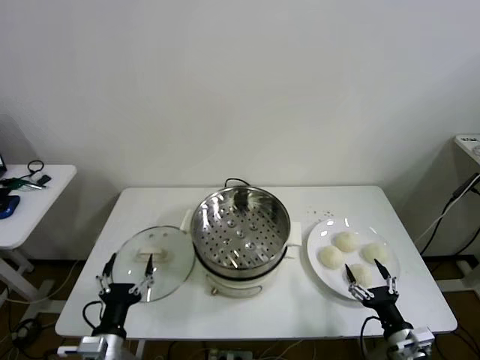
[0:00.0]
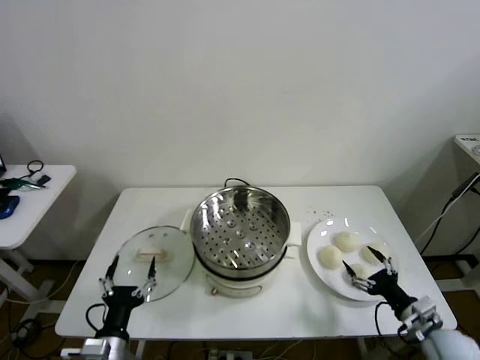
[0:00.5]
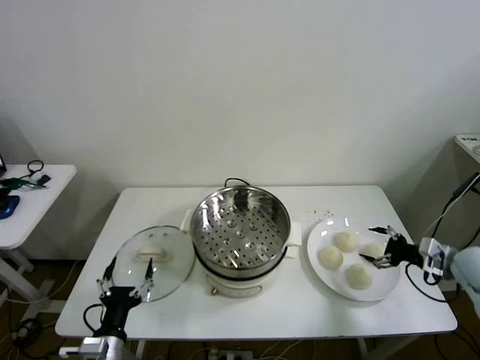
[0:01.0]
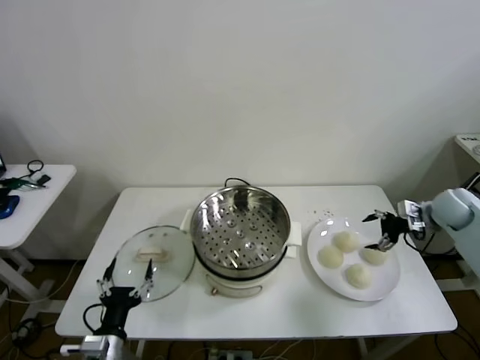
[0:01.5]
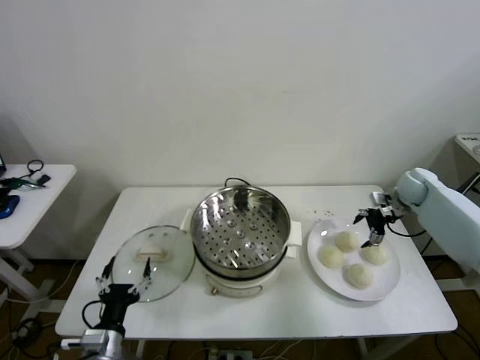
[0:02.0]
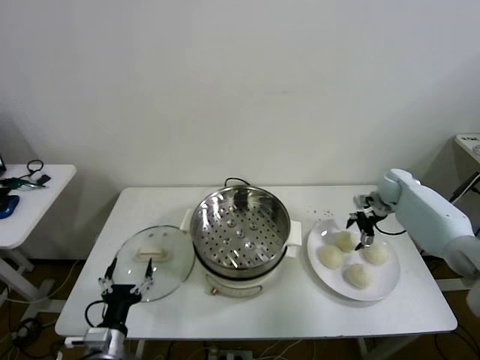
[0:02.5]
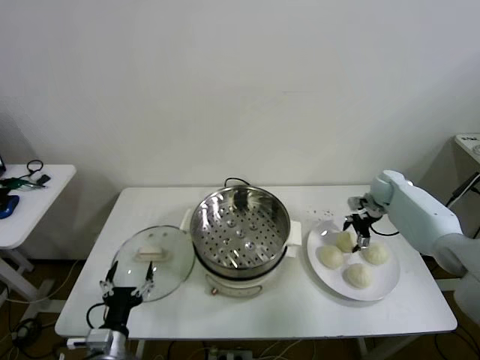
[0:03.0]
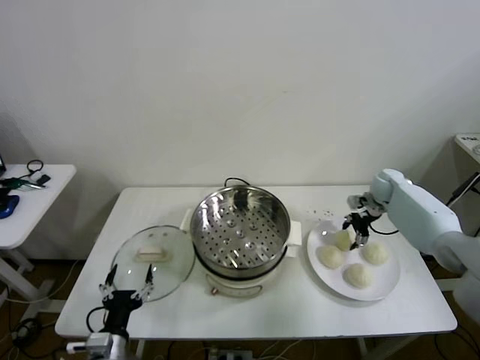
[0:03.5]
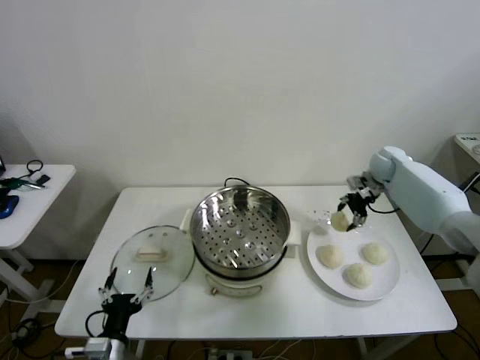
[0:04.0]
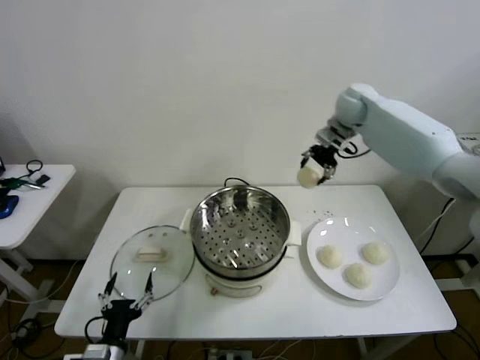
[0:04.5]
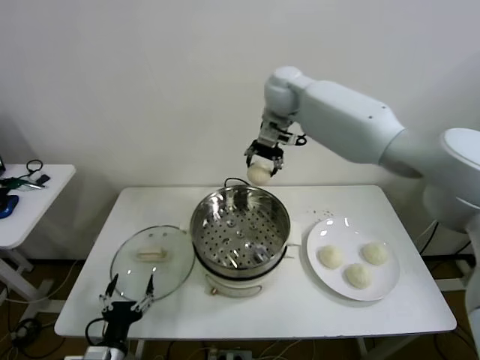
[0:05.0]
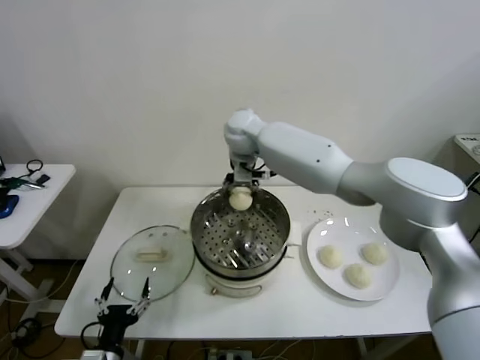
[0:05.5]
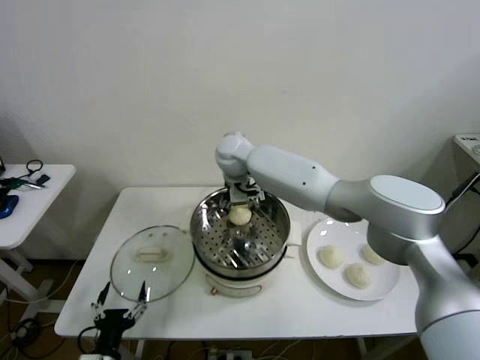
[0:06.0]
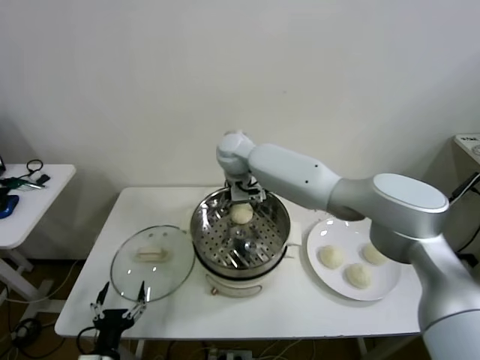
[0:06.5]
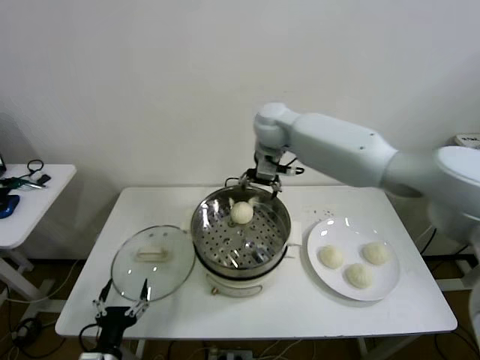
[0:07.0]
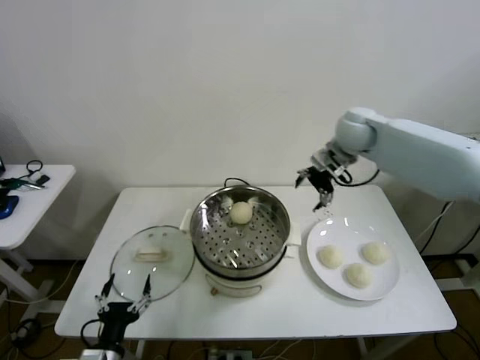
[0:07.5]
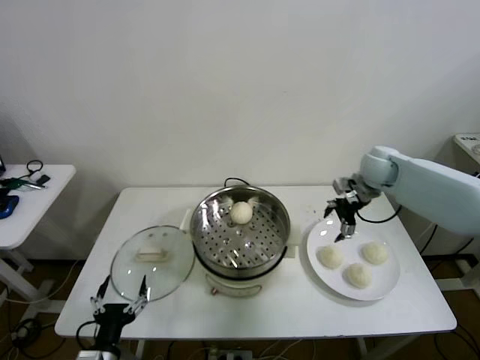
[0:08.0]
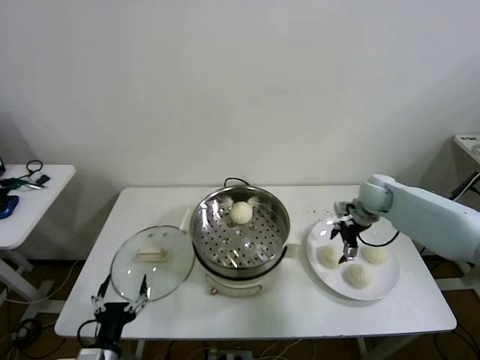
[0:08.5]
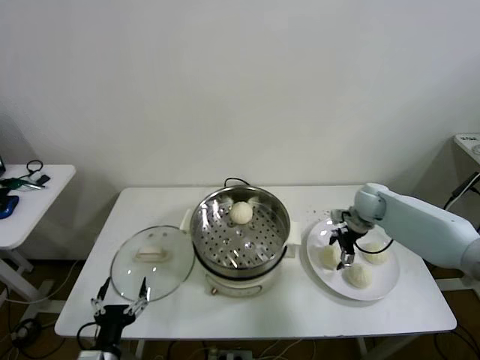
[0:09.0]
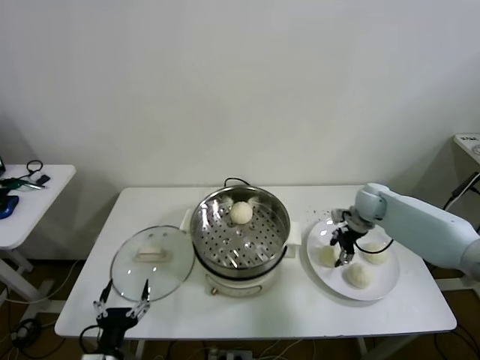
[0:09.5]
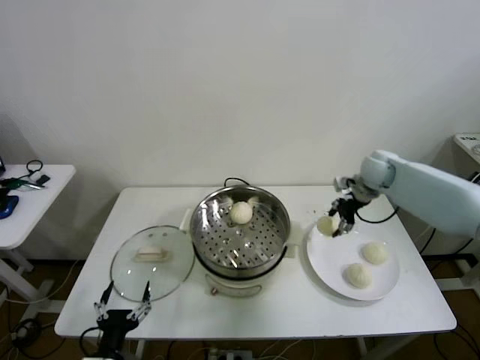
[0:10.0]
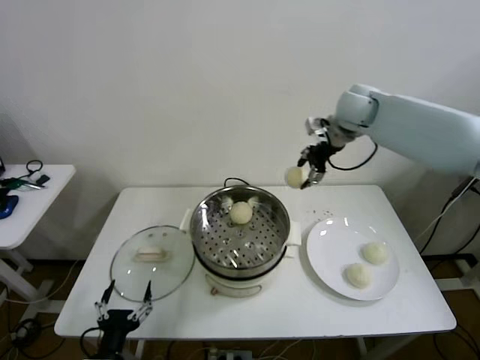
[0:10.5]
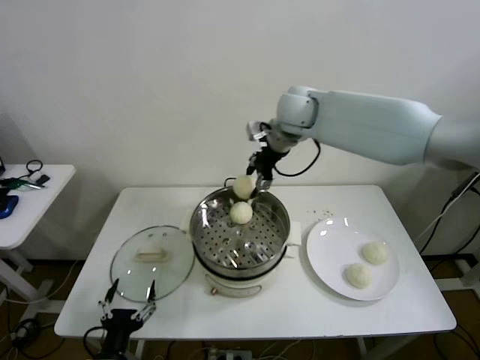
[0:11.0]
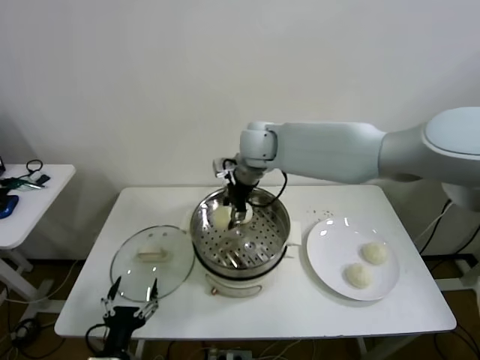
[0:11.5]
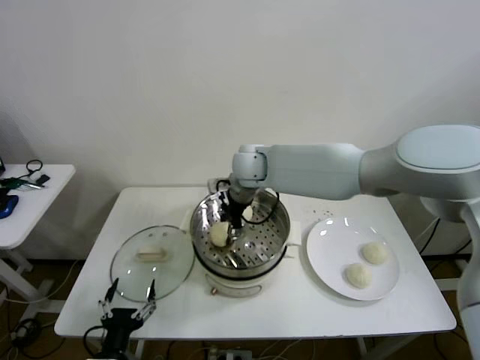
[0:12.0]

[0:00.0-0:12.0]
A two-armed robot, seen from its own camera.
Step, 0:00.0 to 0:03.0: Grasp the baozi in the plate with right gripper.
Step, 0:03.5 to 0:06.0: Place the baozi on the steamer with right gripper.
Step, 0:06.5 to 0:09.0: Grasp the baozi in the plate with right gripper.
0:02.0 to 0:04.0: The right gripper shifts about 10 cm to the left and forward, and closes up.
0:04.0 to 0:06.0: The right gripper is displaced to the left by about 40 cm, and opens up.
0:06.0 to 0:08.0: The right gripper travels to the right by roughly 35 cm.
0:08.0 to 0:10.0: The right gripper goes downward and returns, roughly 10 cm each way, and closes its fingers.
0:10.0 to 0:12.0: The right gripper travels to the left by about 35 cm.

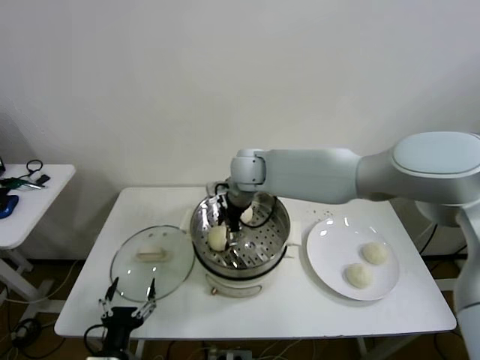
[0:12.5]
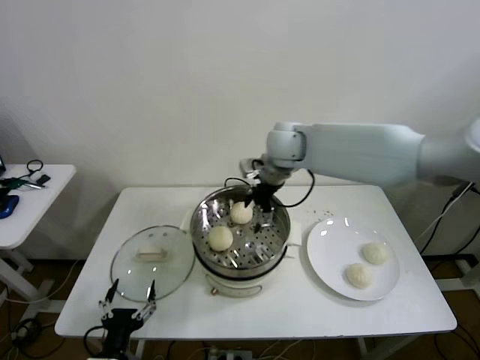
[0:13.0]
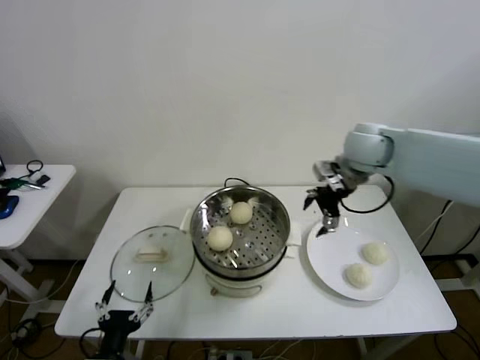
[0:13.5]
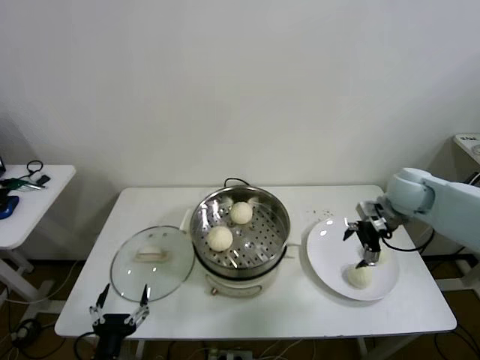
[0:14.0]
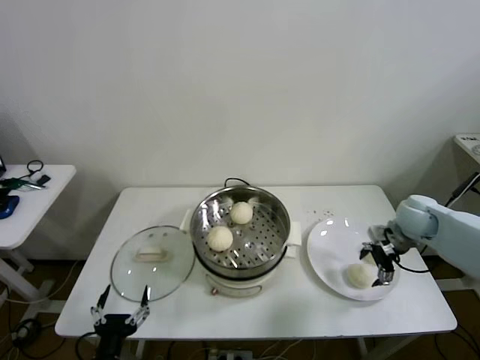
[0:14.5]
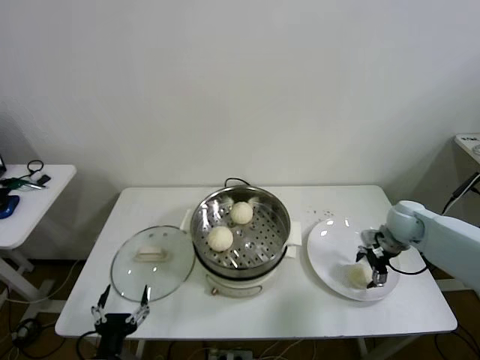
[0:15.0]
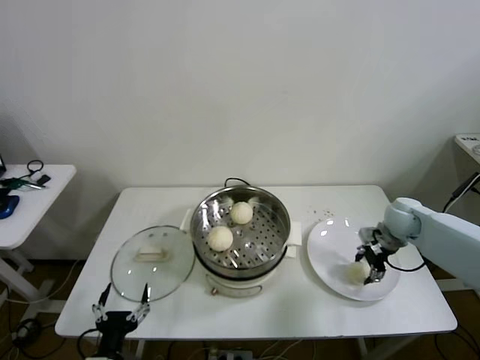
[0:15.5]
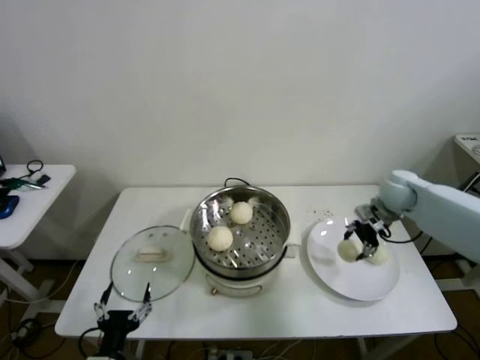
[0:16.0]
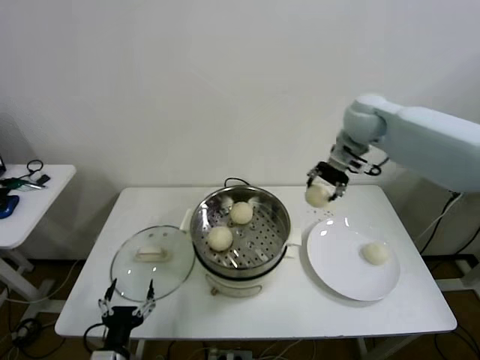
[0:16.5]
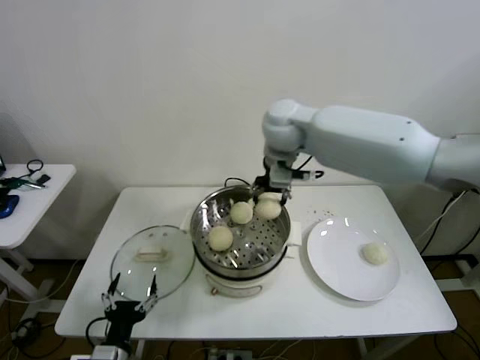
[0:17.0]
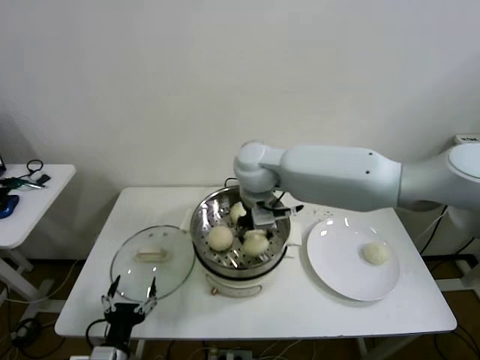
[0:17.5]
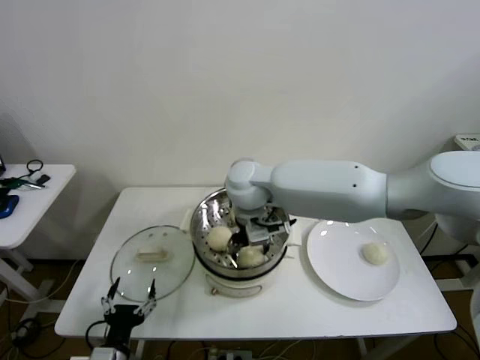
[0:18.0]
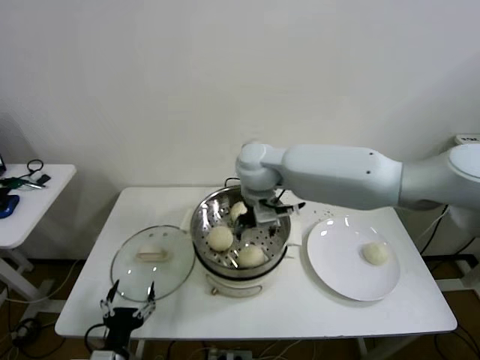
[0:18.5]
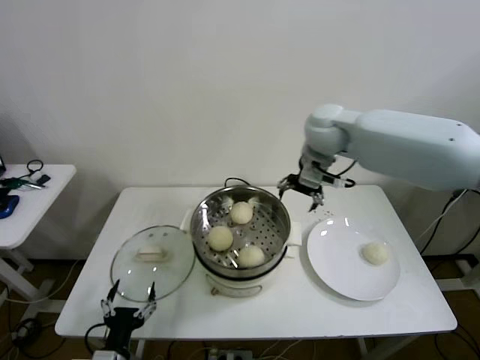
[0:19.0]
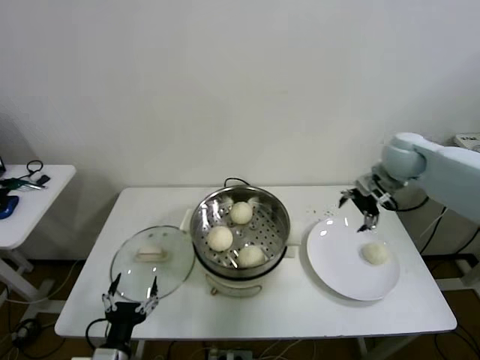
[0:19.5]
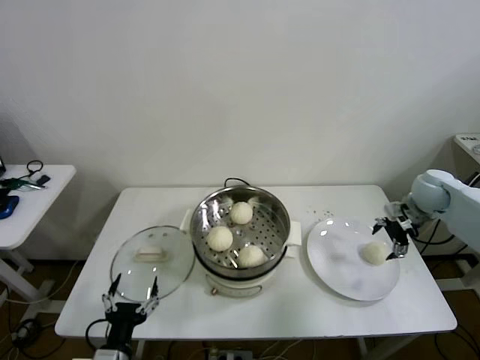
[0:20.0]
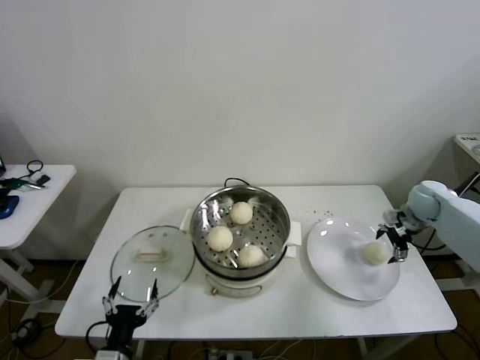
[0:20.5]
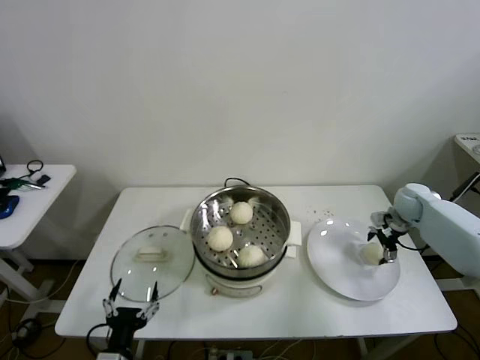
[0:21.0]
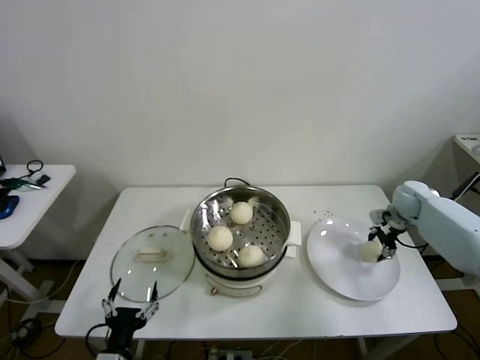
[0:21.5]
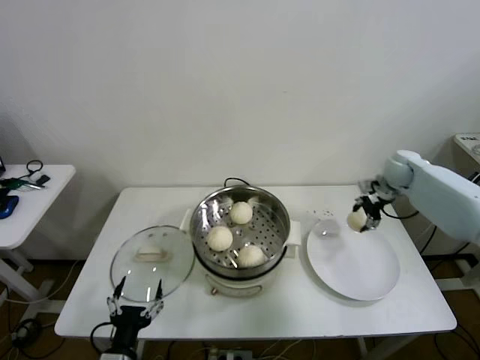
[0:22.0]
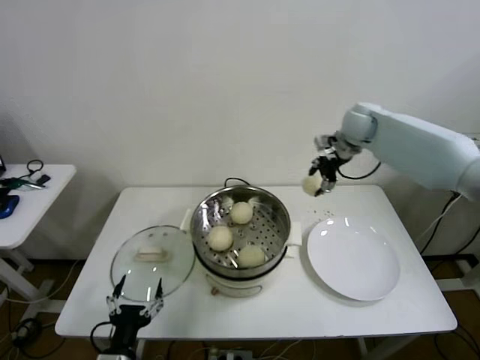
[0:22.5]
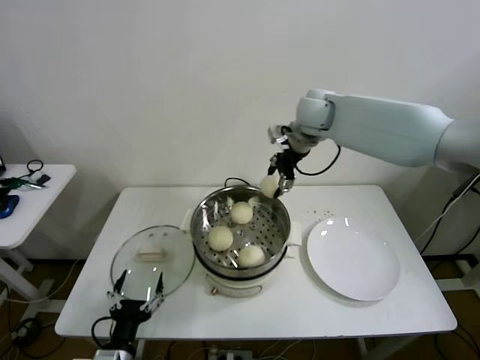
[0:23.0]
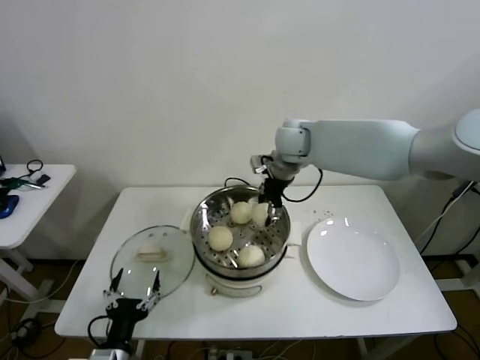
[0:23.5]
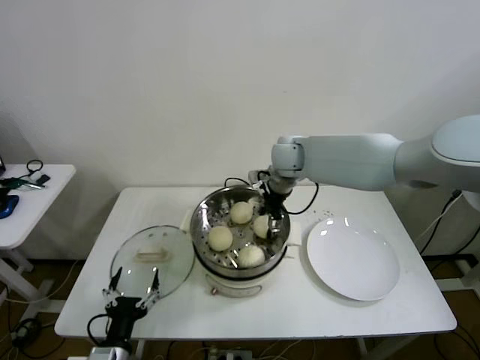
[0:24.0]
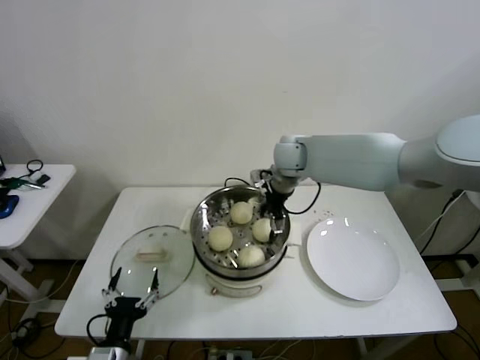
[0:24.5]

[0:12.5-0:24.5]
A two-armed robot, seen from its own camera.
Step, 0:13.0 to 0:15.0: Grasp the baozi in the plate with right gripper.
Step, 0:15.5 to 0:18.0: Place the baozi on the steamer with right gripper.
Step, 0:18.5 to 0:21.0: Grasp the baozi in the plate with right gripper.
Step, 0:21.5 to 0:24.0: Place the baozi on the steamer with right gripper.
0:12.5 to 0:14.5: The right gripper shifts about 40 cm to the right.
0:14.5 to 0:16.5: The right gripper shifts roughly 30 cm upward, to the left and forward, and closes up.
0:16.5 to 0:18.5: The right gripper moves to the left, about 20 cm, and opens its fingers.
0:18.5 to 0:20.5: The right gripper shifts approximately 40 cm to the right.
0:20.5 to 0:22.5: The right gripper heads to the left, upward and forward, covering some 30 cm, and closes up.
0:22.5 to 0:24.5: The right gripper goes roughly 15 cm to the left, and opens.

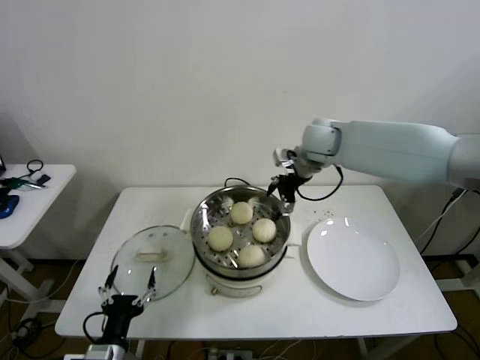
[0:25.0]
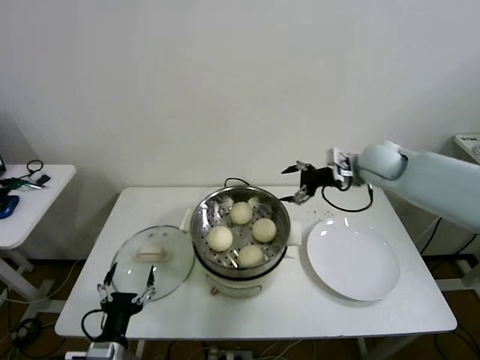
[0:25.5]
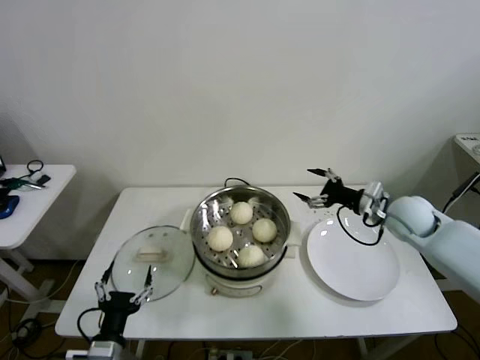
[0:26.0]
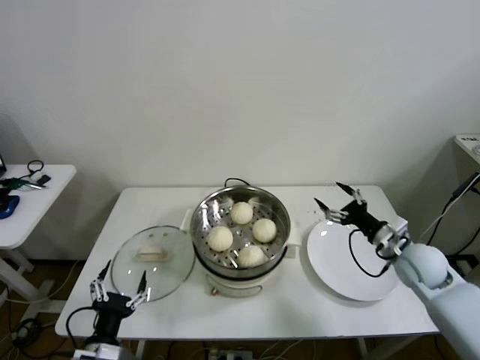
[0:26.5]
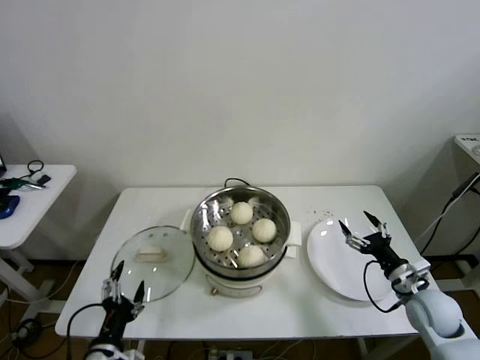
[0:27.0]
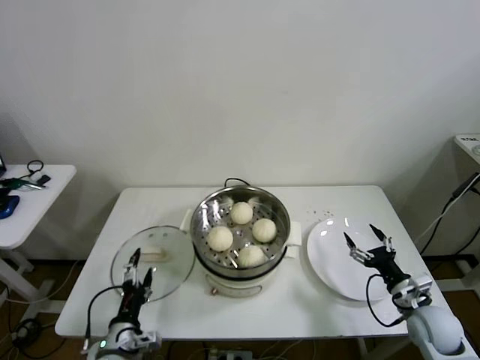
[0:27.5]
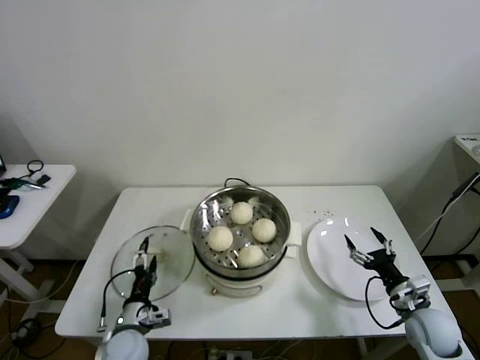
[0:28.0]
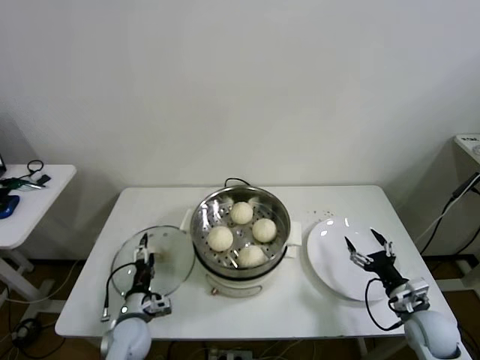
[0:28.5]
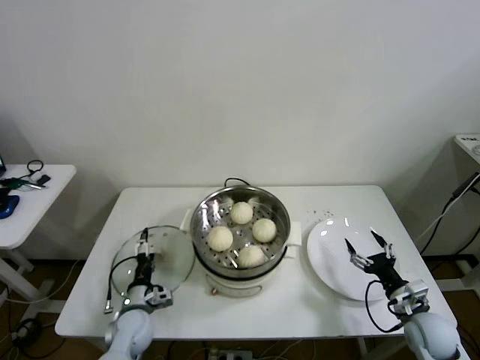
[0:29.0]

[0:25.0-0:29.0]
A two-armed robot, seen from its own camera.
0:25.0 to 0:27.0: The right gripper travels backward, downward and to the right by roughly 40 cm.
0:27.0 to 0:29.0: The right gripper moves roughly 5 cm. Meanwhile the left gripper heads forward and downward, covering about 20 cm.
